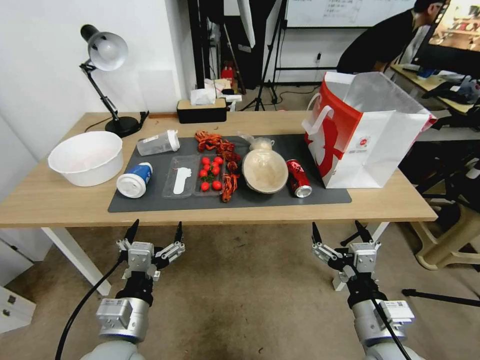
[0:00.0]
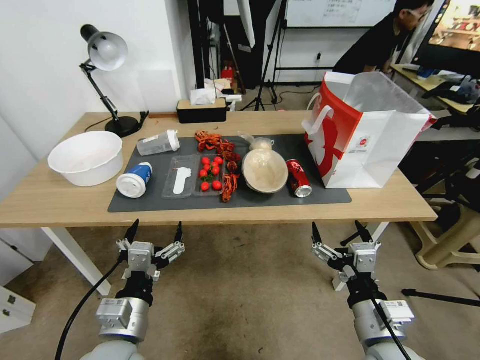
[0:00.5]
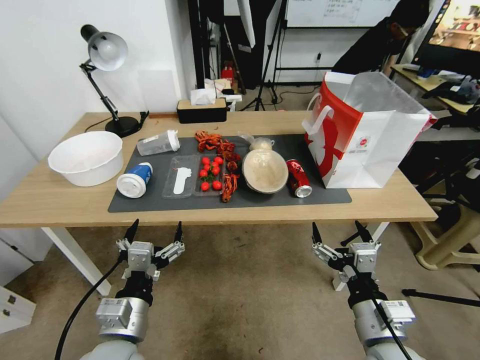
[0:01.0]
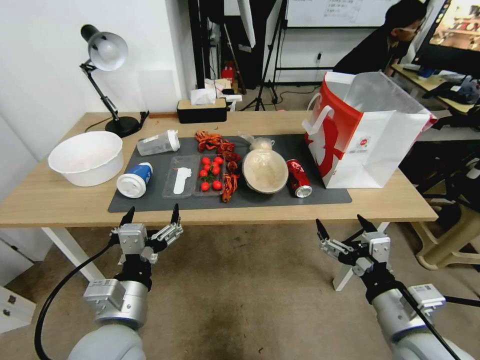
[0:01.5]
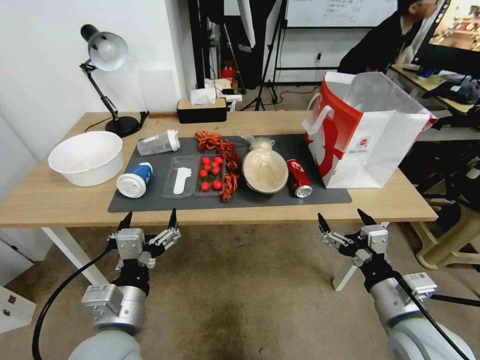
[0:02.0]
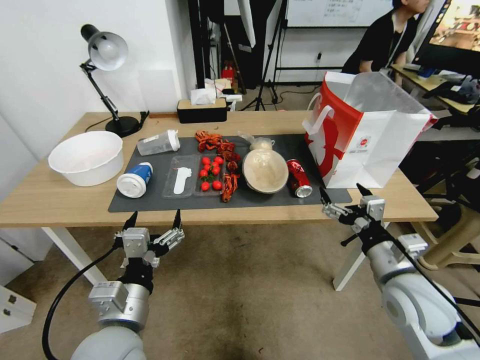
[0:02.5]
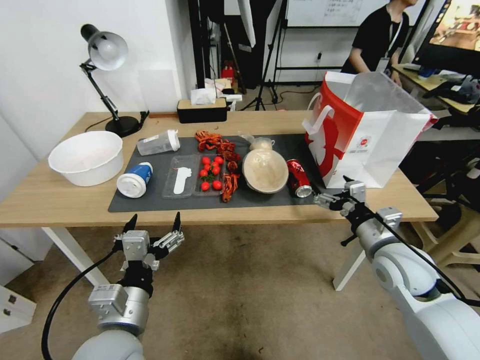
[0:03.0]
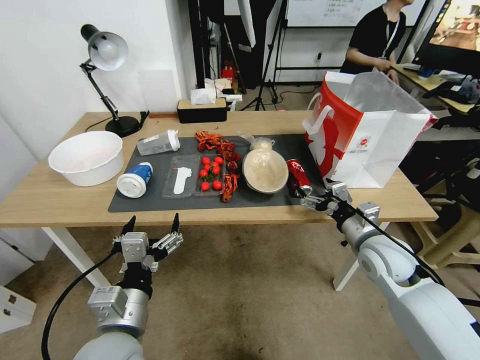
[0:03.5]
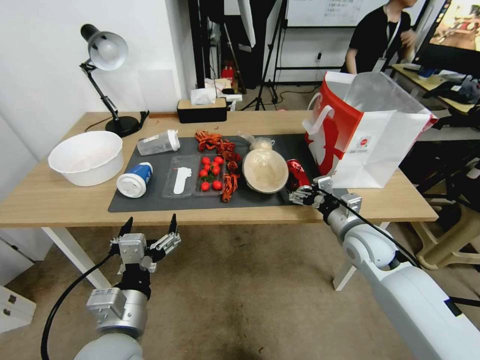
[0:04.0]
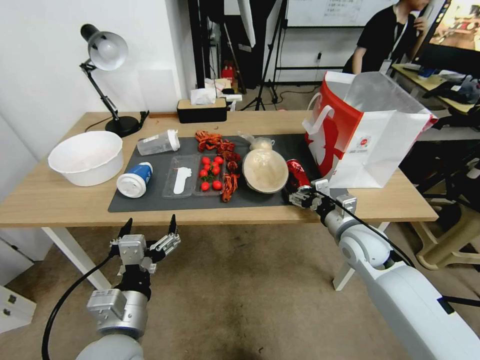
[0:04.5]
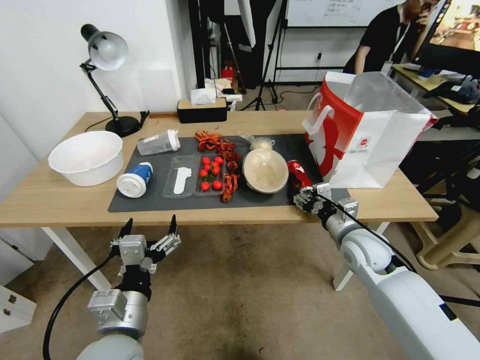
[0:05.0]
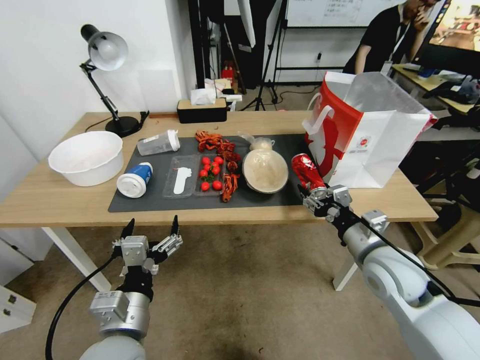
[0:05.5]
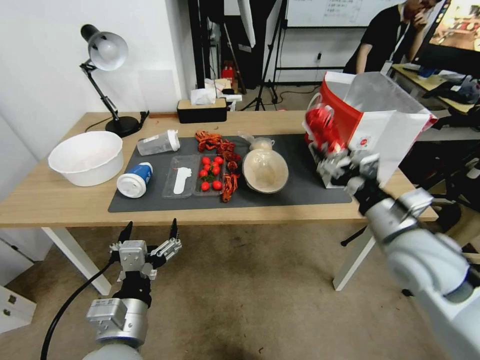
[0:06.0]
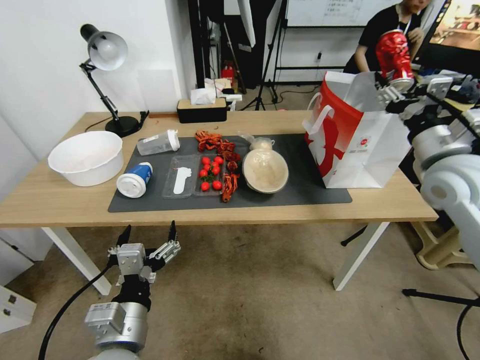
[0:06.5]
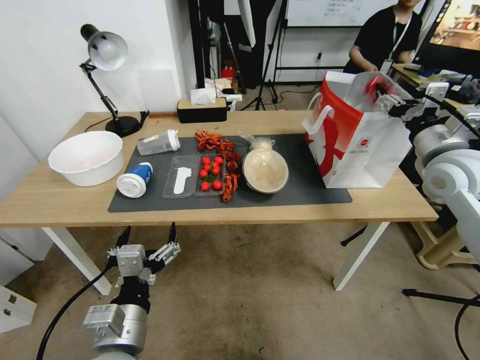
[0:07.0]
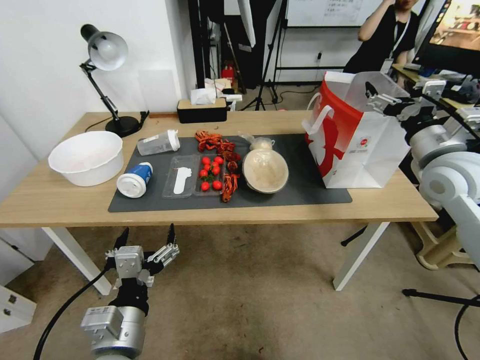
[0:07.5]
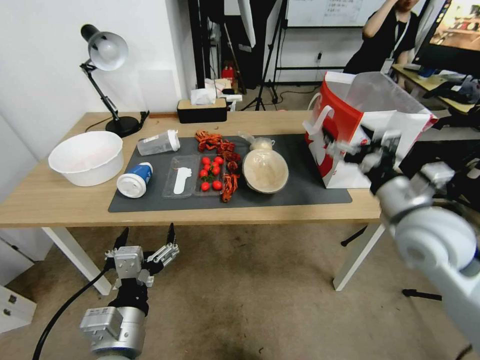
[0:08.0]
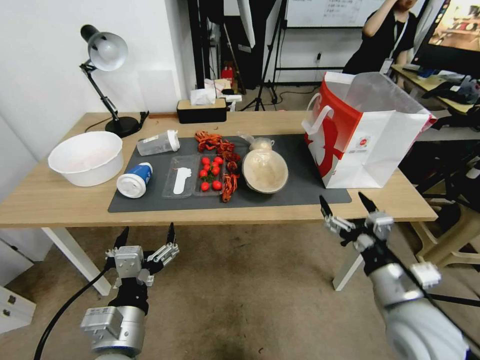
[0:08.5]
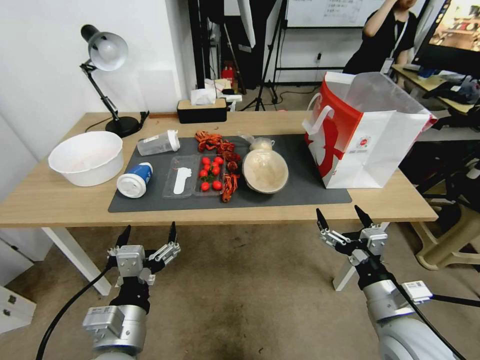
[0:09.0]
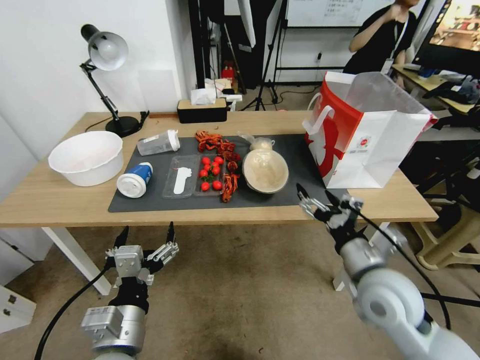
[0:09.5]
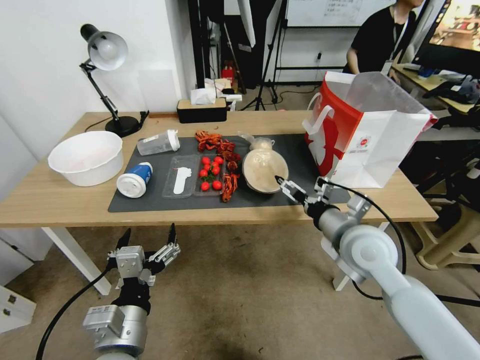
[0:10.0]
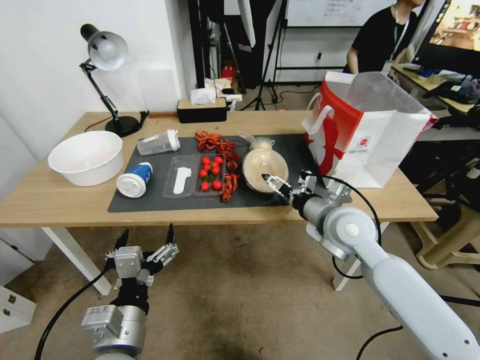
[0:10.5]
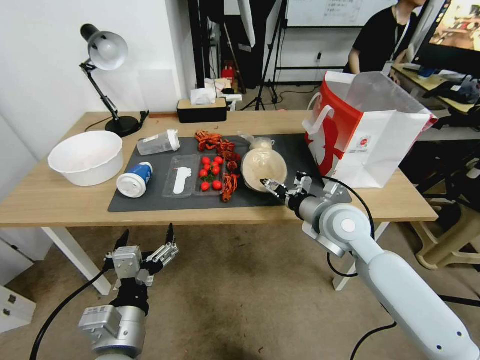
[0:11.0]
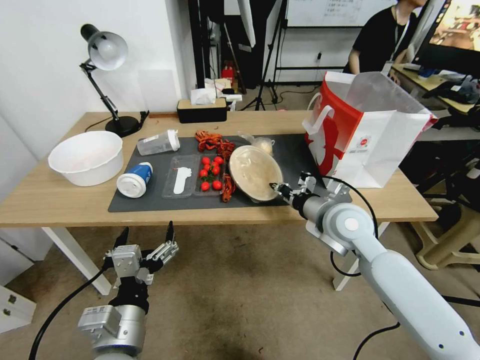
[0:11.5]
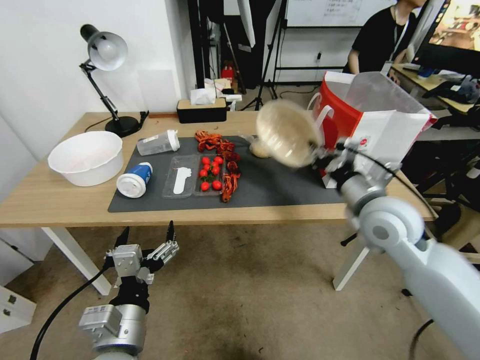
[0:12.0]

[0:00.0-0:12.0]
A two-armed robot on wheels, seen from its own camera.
0:02.0 to 0:04.0: The right gripper shifts some 15 cm forward.
0:04.0 to 0:06.0: The right gripper goes roughly 15 cm upward and backward, and closes its fingers.
0:06.0 to 0:08.0: The right gripper goes forward and returns, some 10 cm each way, and opens up.
0:08.0 to 0:10.0: The right gripper travels downward and to the left by about 10 cm.
0:10.0 to 0:12.0: The right gripper shifts approximately 10 cm upward and forward, and closes up.

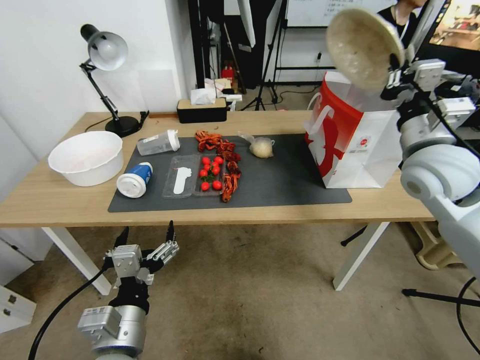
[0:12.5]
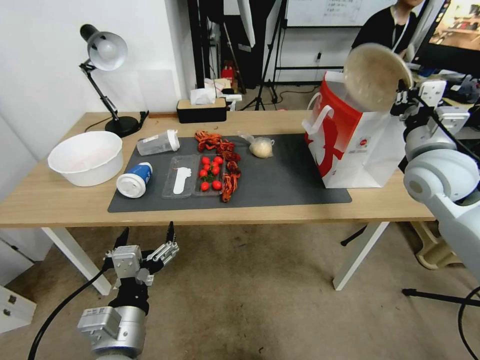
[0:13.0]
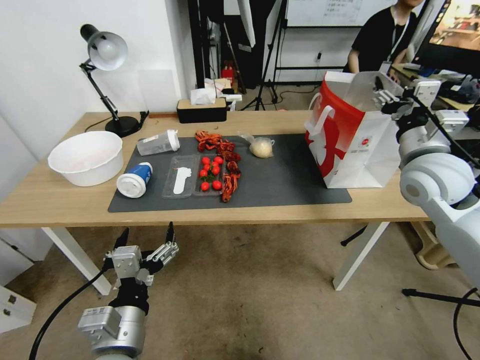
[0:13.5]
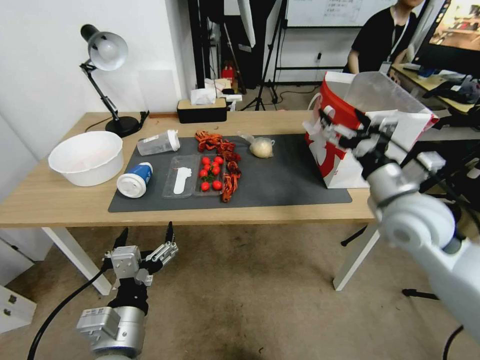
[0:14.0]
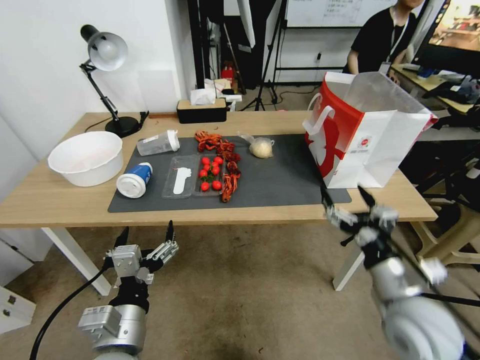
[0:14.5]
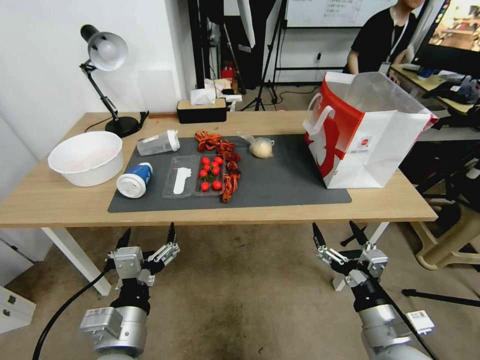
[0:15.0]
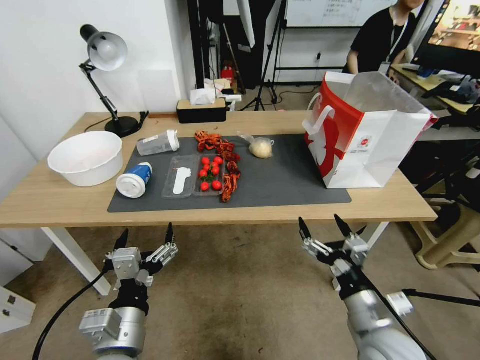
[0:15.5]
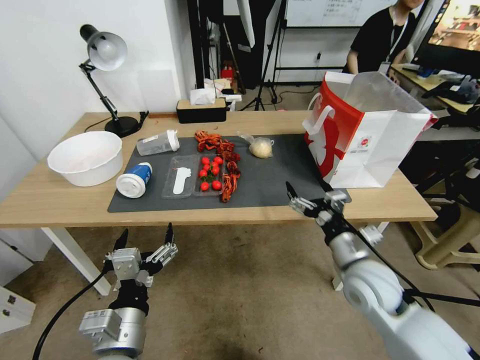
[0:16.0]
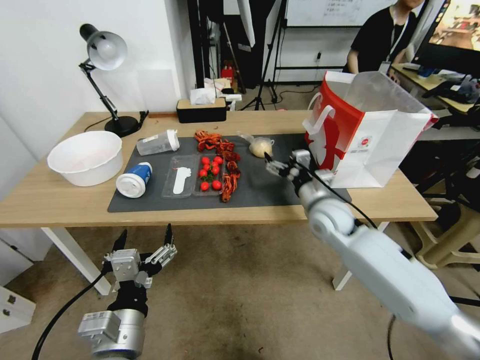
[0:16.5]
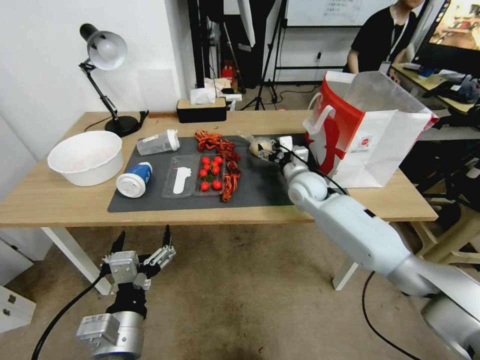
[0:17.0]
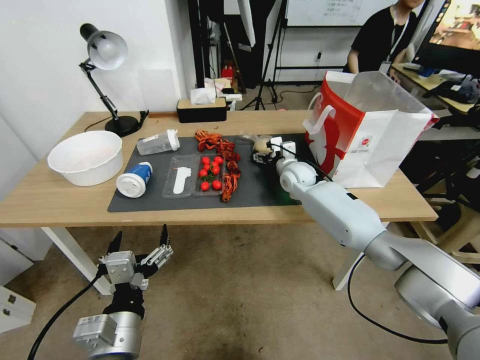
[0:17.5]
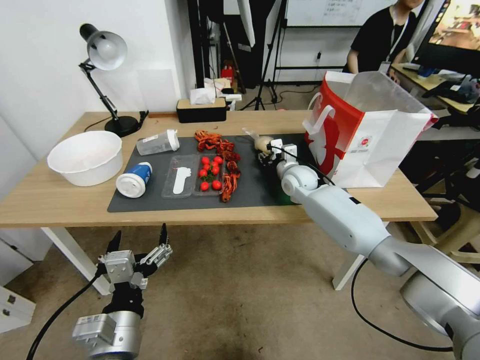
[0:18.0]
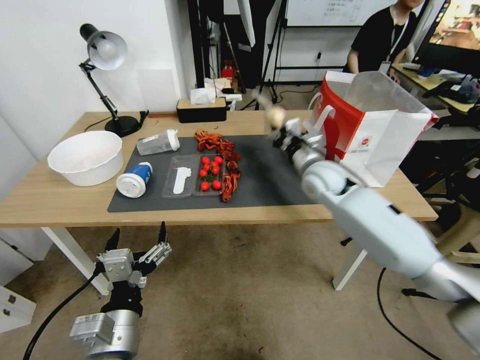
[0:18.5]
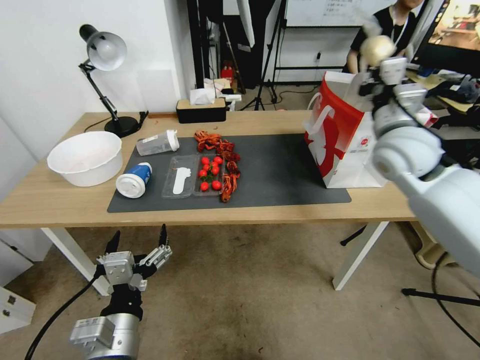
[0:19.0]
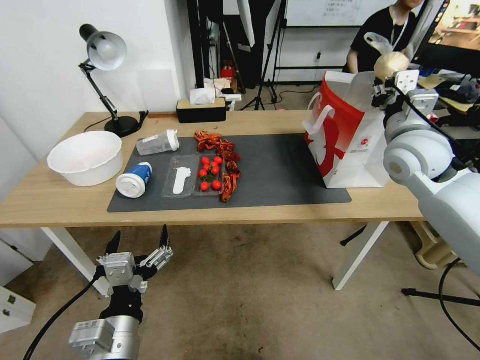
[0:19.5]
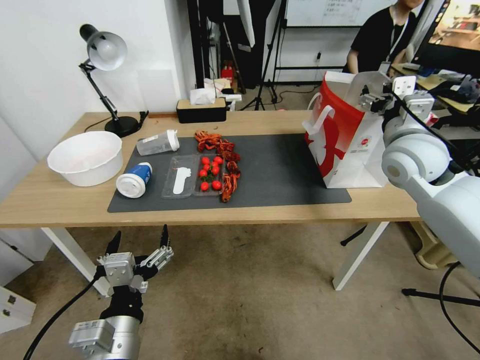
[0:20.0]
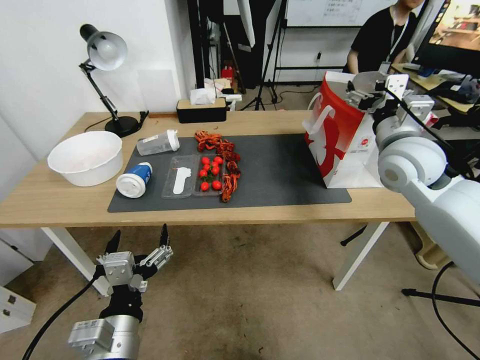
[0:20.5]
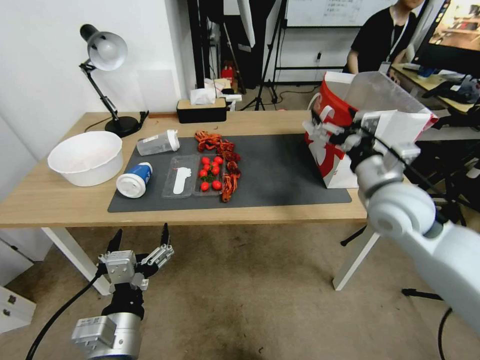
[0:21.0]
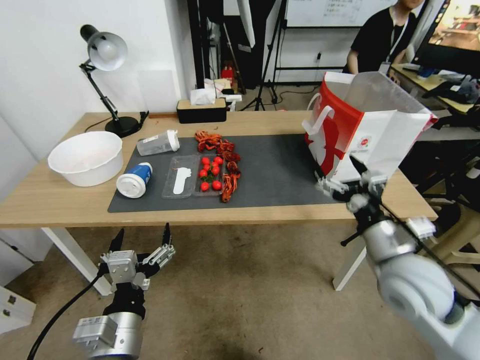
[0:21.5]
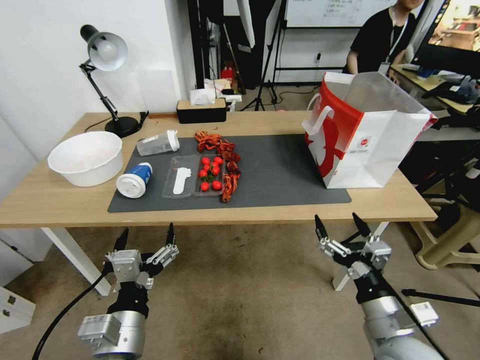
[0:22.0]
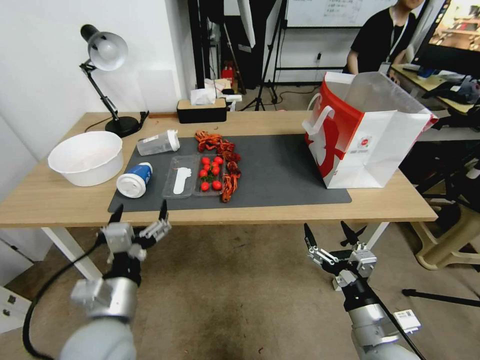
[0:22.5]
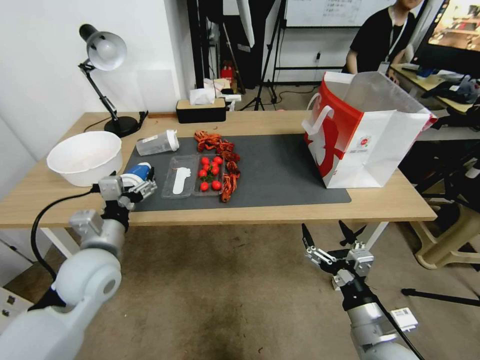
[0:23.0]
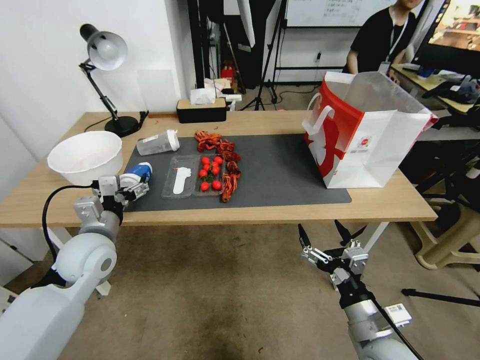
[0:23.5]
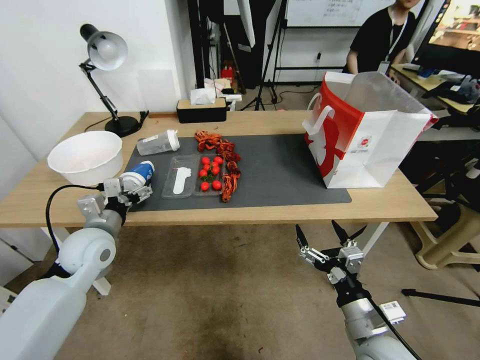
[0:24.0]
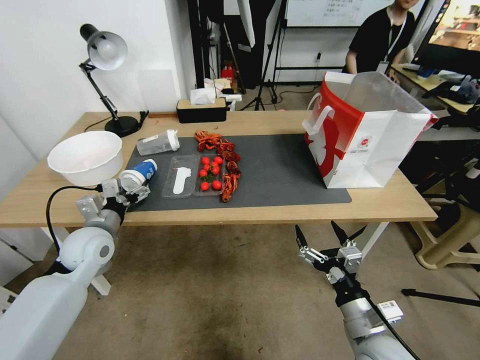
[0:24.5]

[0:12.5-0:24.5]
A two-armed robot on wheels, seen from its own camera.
0:12.5 to 0:14.5: The right gripper travels backward and downward by about 25 cm, and opens up.
0:14.5 to 0:16.5: The right gripper travels forward by about 25 cm.
0:16.5 to 0:18.5: The right gripper is displaced forward and upward by approximately 10 cm, and closes.
0:18.5 to 0:20.5: The right gripper travels upward, to the right and backward by approximately 15 cm, and opens its fingers.
0:20.5 to 0:22.5: The left gripper travels forward by roughly 5 cm. The right gripper moves backward and downward, about 35 cm.
0:22.5 to 0:24.5: The left gripper goes approximately 20 cm forward and to the left.

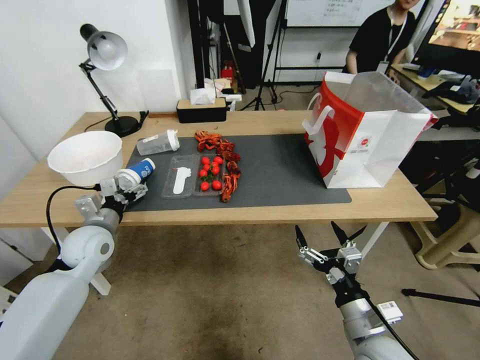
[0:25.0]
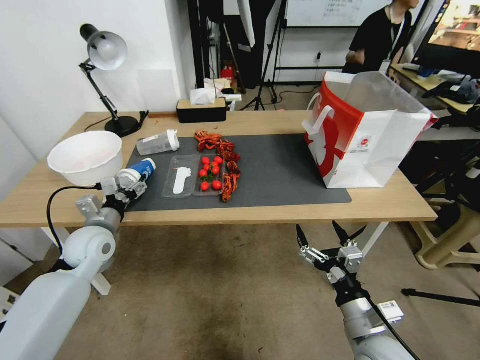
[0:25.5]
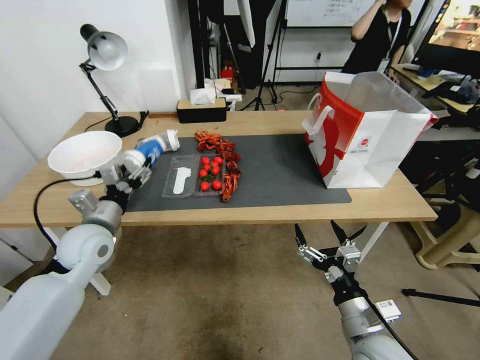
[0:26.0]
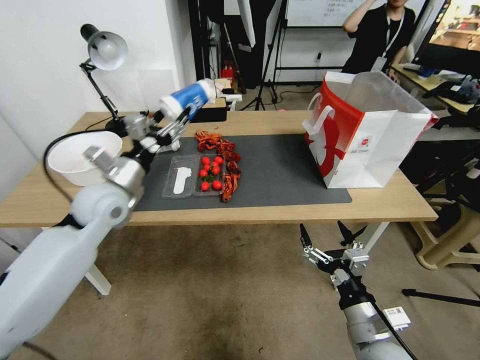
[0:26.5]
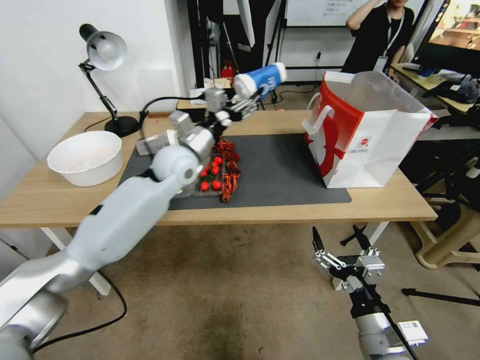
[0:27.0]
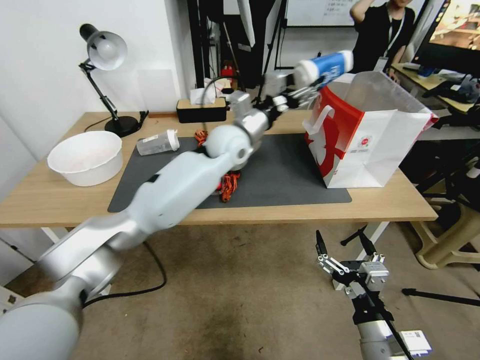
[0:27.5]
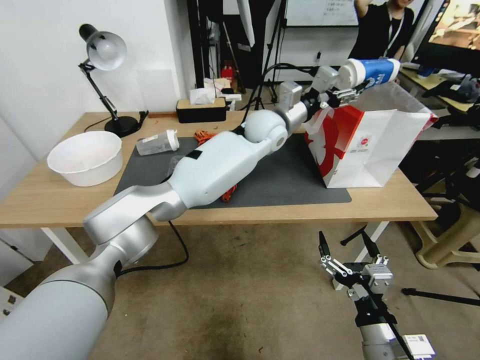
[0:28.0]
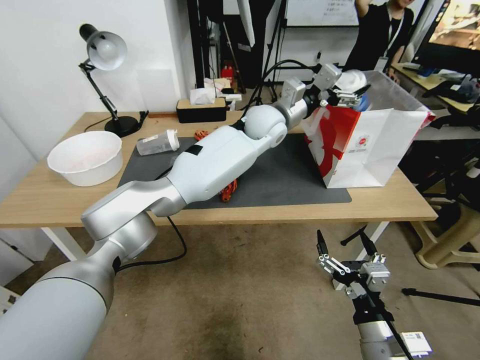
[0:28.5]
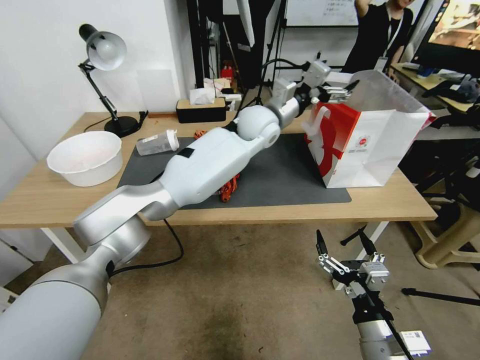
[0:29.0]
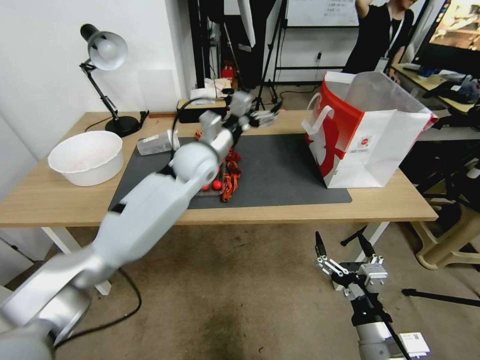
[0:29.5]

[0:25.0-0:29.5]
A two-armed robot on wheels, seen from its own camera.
0:25.0 to 0:27.0: The left gripper is displaced to the right, upward and forward by some 25 cm.
0:27.0 to 0:29.5: The left gripper travels to the right by about 10 cm.
